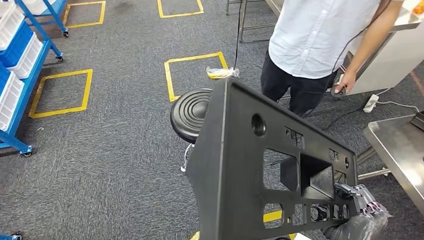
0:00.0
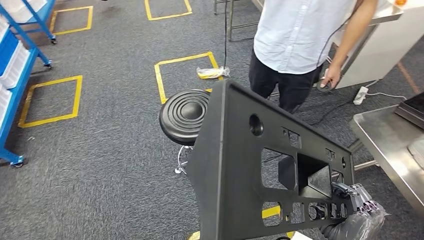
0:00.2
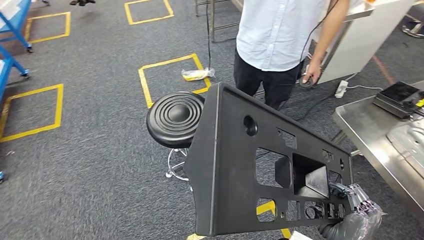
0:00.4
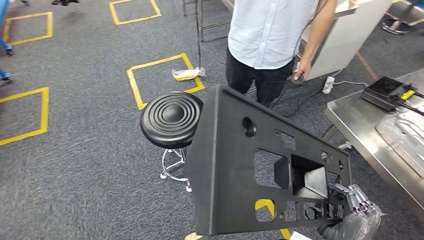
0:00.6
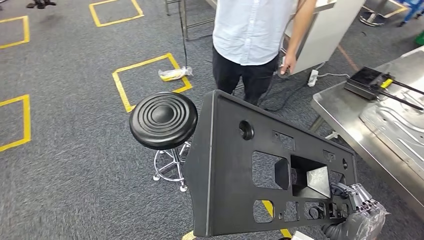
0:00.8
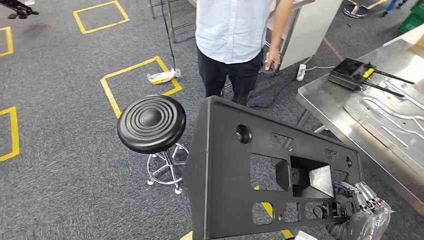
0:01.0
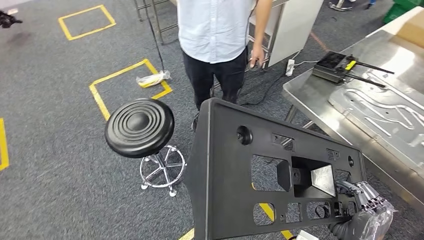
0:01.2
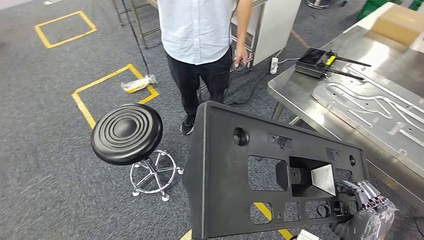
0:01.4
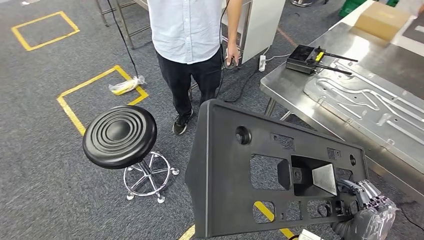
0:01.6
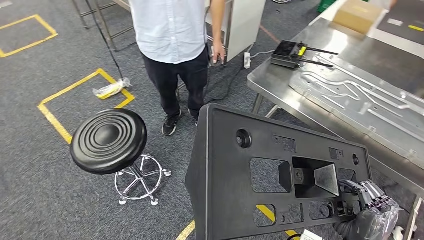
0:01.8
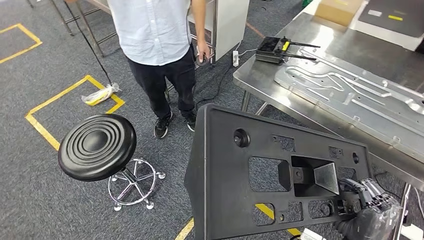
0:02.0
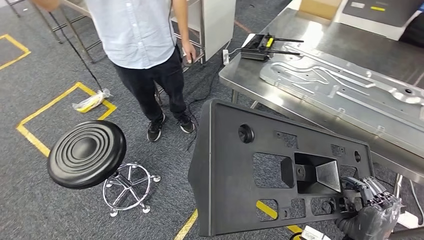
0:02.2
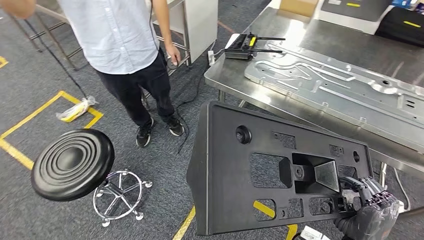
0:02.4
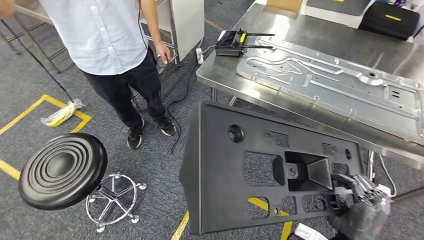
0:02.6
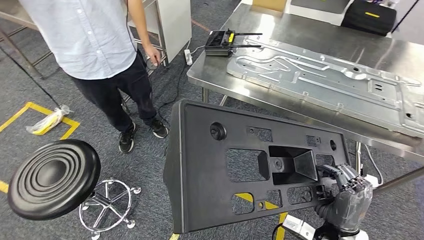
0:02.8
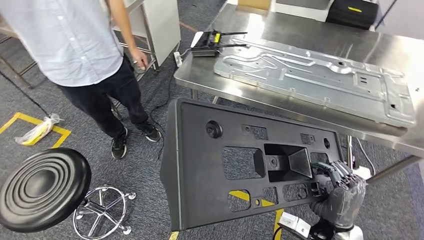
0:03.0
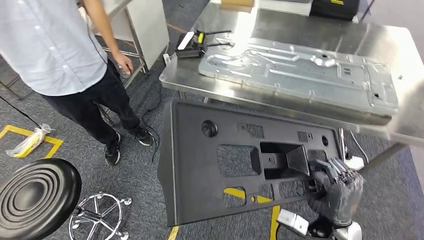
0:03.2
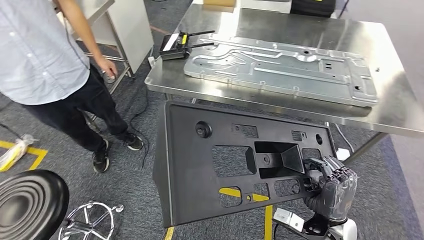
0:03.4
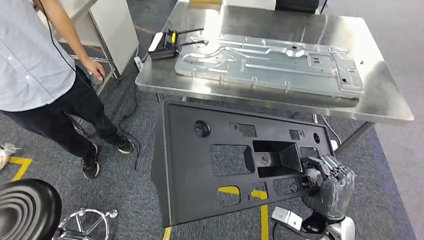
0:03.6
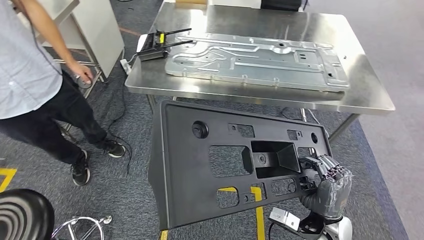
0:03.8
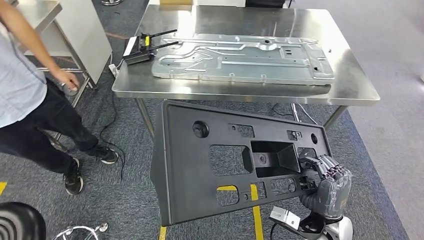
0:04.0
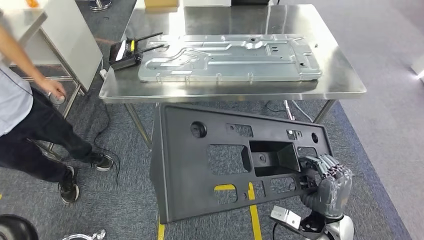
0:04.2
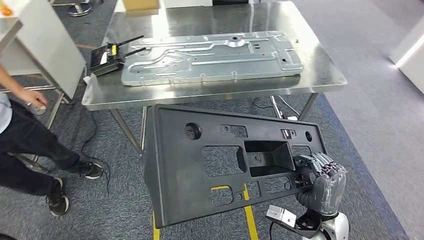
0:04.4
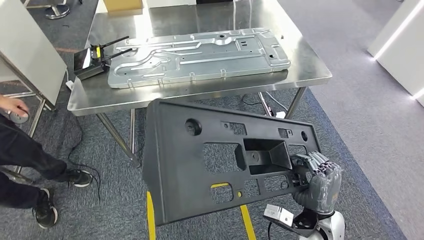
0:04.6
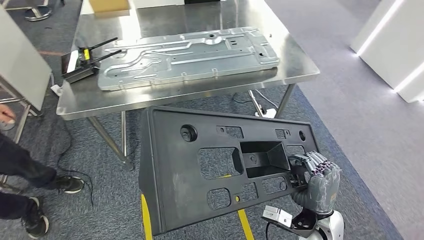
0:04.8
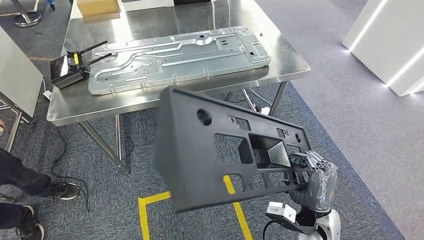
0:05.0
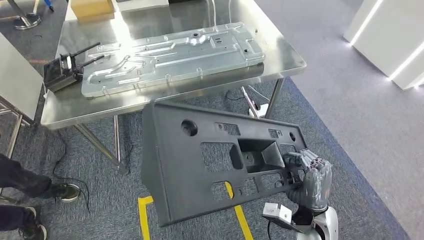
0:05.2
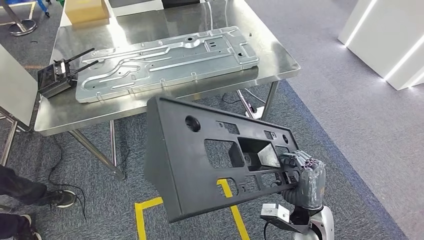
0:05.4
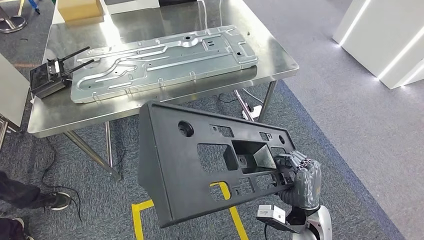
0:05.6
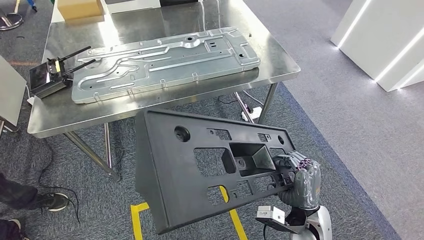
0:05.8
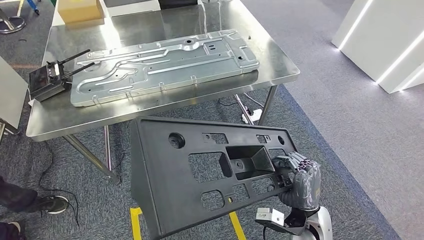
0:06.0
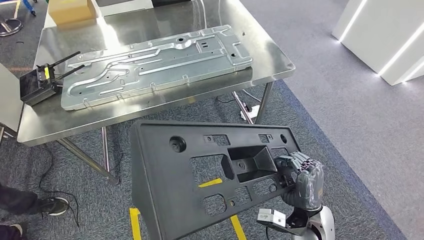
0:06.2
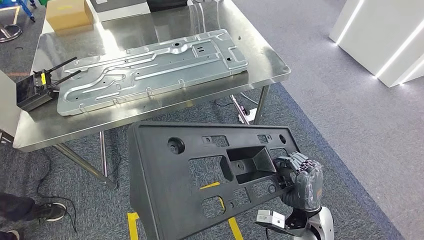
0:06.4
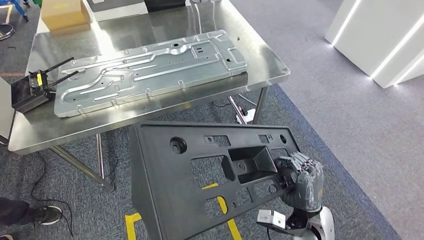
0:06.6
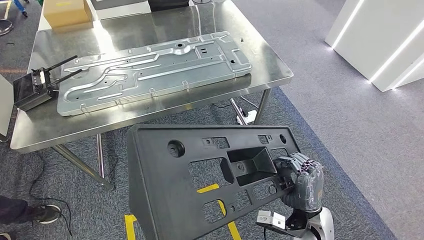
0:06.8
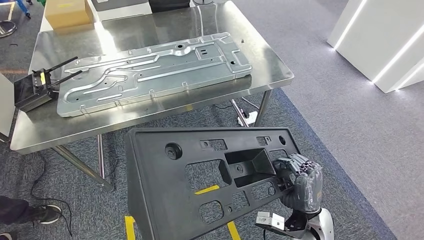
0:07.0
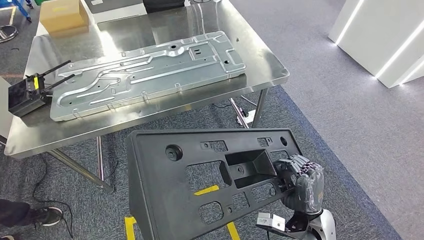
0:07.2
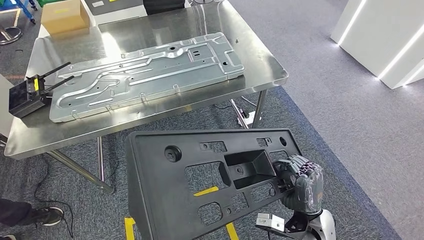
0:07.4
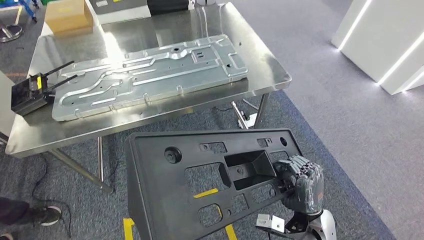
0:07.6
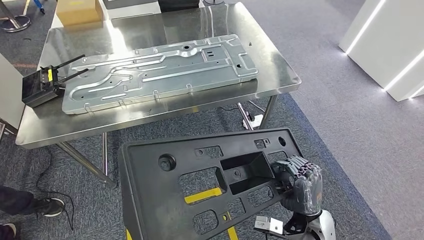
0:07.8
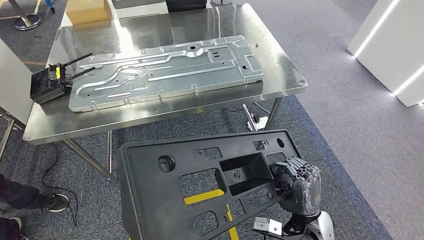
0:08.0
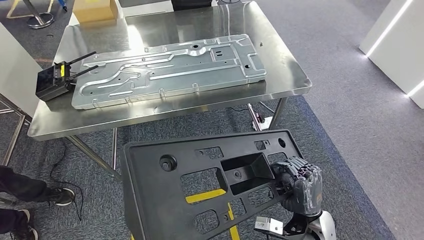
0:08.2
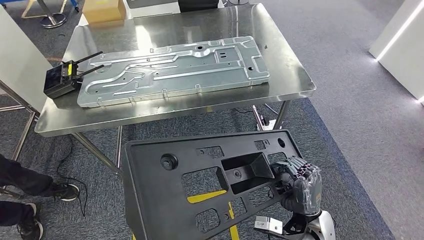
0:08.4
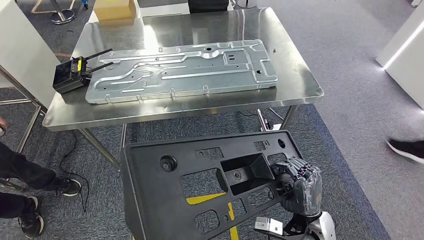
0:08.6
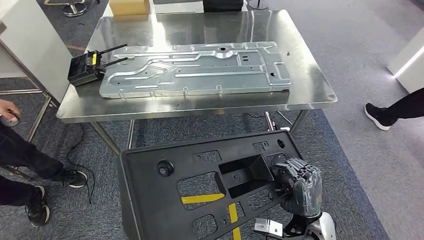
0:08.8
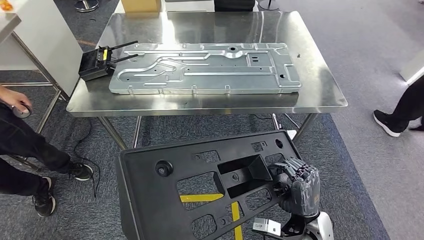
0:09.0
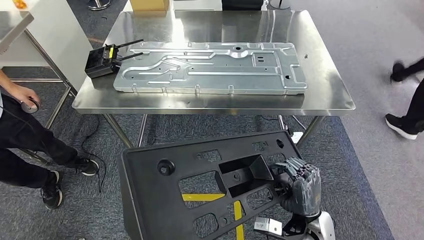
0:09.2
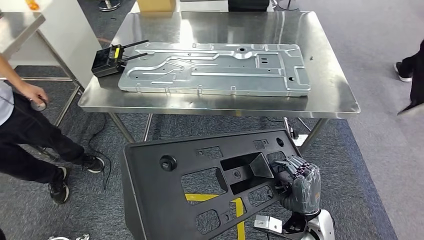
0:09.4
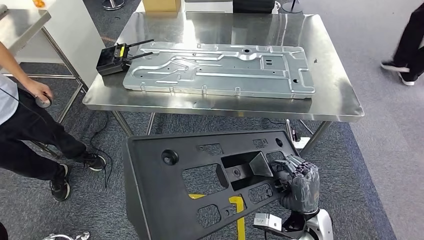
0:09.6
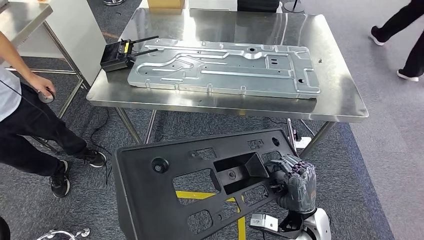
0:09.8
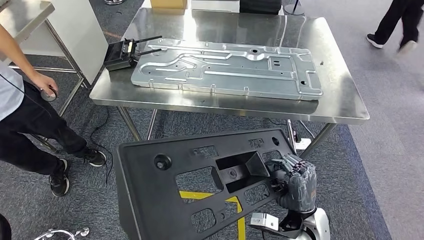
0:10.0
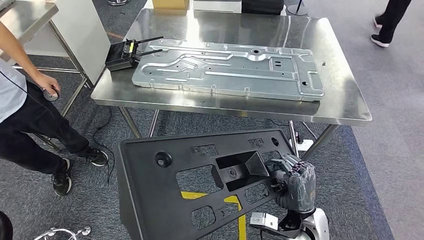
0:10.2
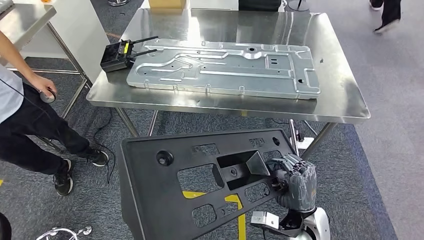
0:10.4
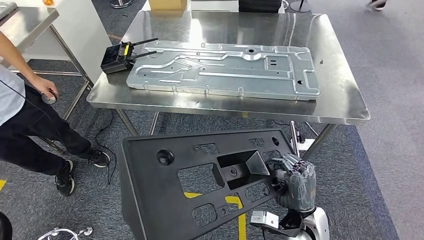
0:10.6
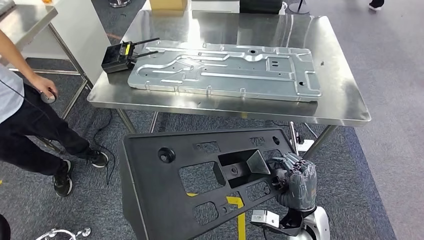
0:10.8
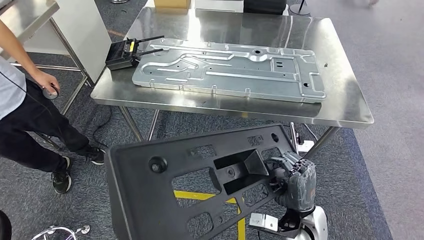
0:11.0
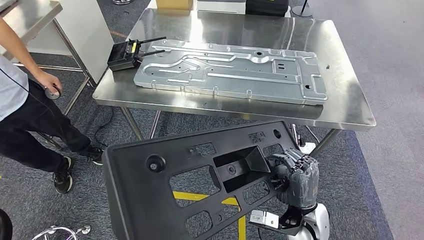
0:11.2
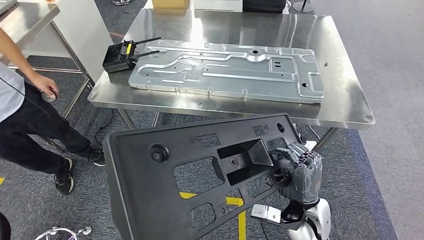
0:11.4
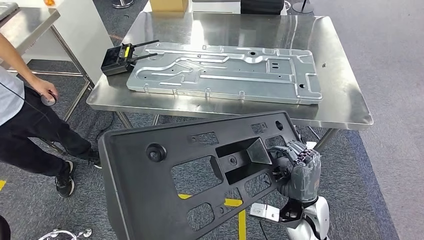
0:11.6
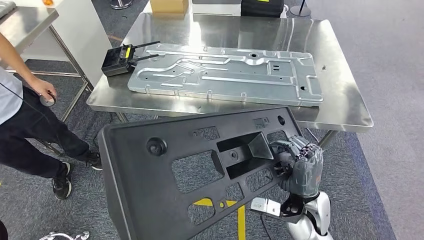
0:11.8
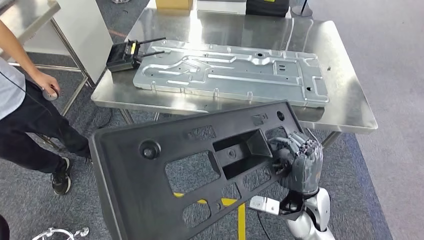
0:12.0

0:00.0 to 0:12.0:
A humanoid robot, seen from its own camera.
Step, 0:00.0 to 0:04.0: Move the large material to the workbench.

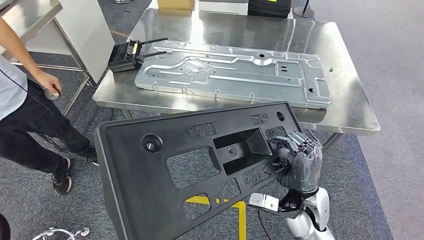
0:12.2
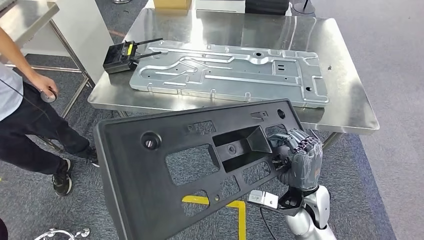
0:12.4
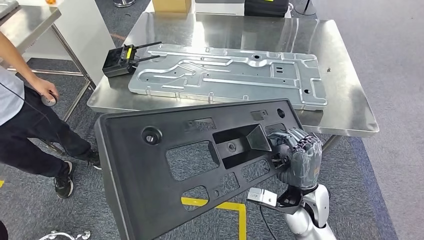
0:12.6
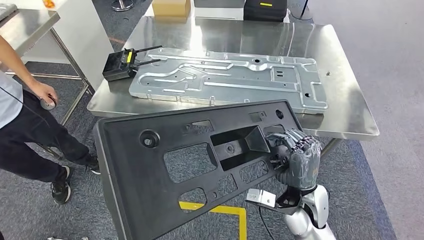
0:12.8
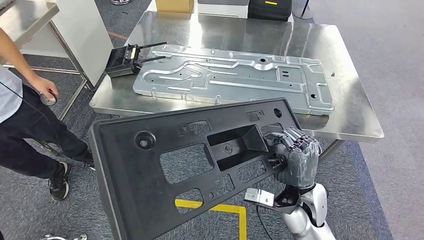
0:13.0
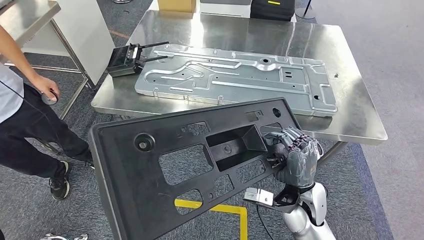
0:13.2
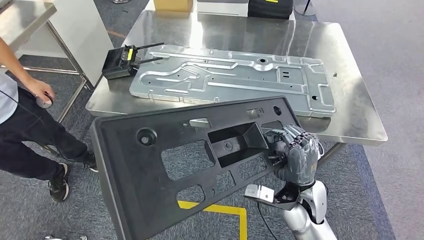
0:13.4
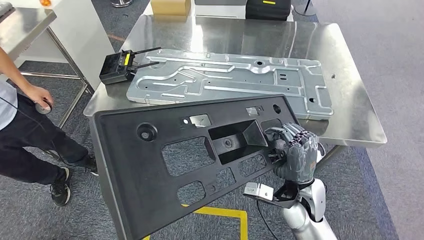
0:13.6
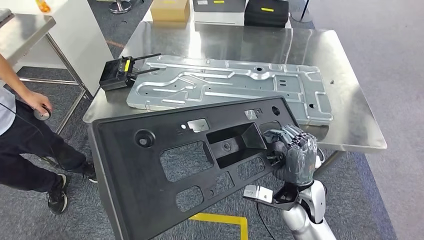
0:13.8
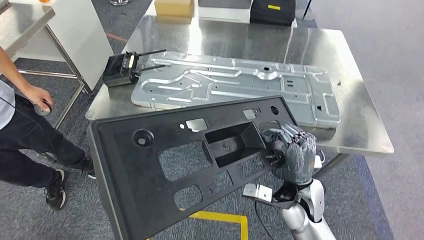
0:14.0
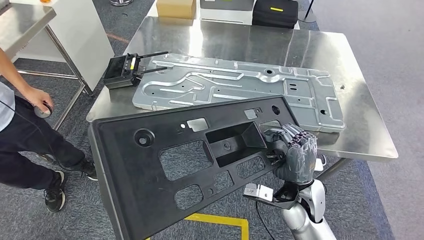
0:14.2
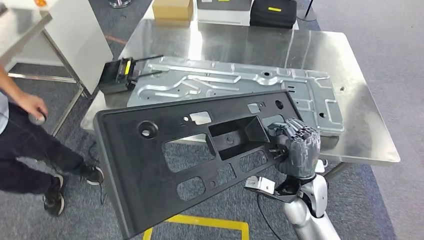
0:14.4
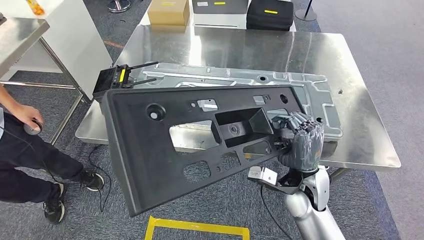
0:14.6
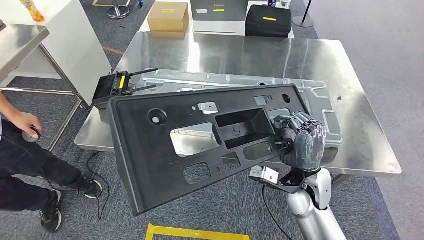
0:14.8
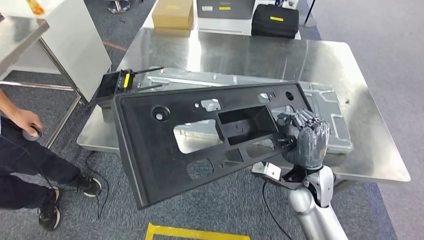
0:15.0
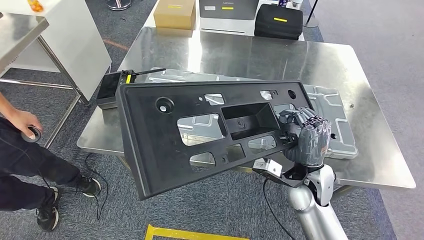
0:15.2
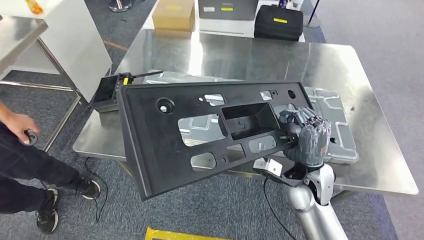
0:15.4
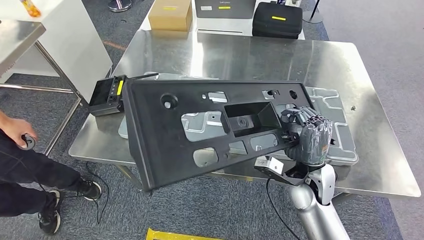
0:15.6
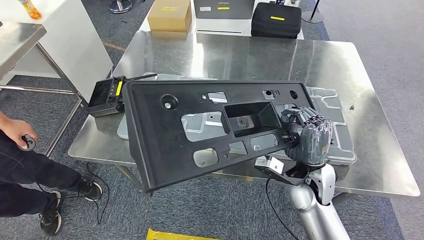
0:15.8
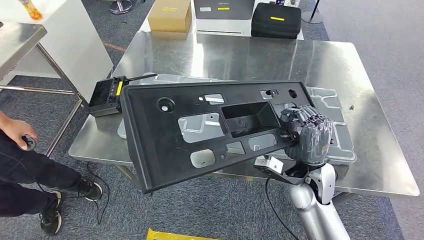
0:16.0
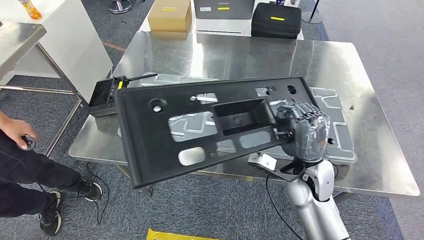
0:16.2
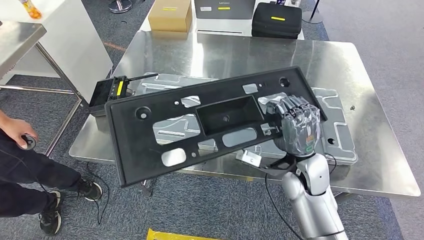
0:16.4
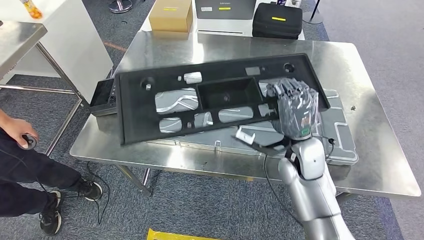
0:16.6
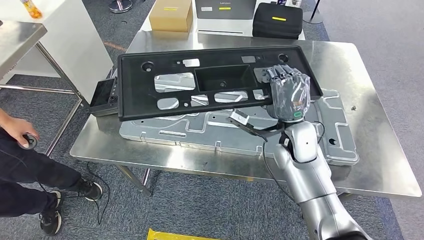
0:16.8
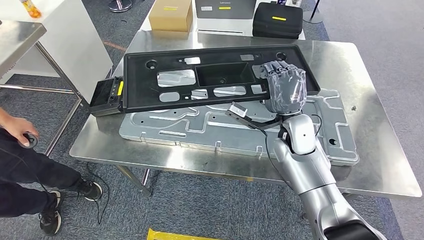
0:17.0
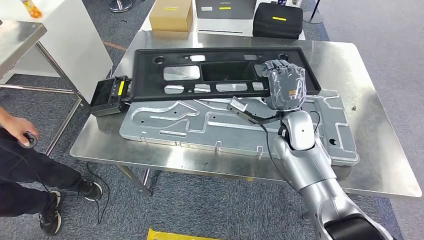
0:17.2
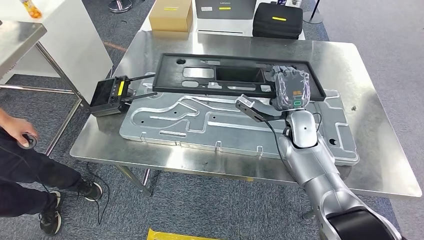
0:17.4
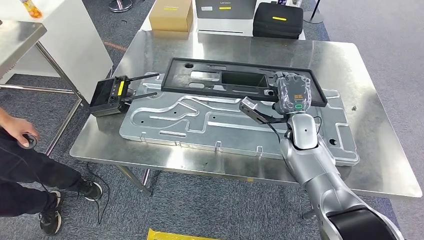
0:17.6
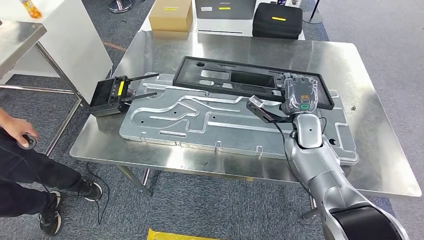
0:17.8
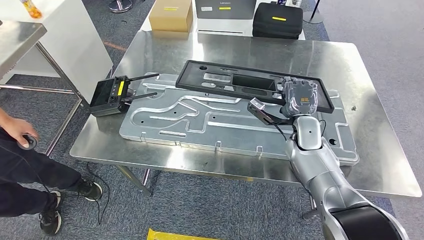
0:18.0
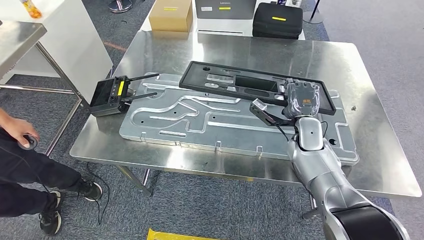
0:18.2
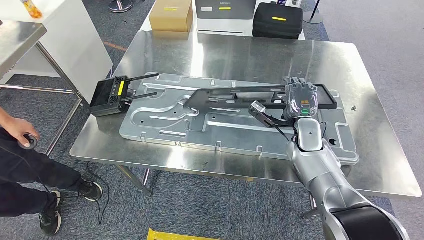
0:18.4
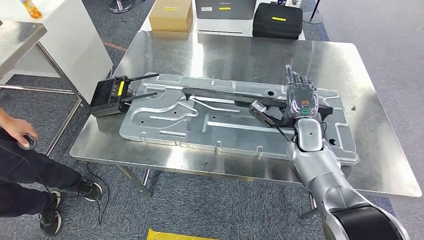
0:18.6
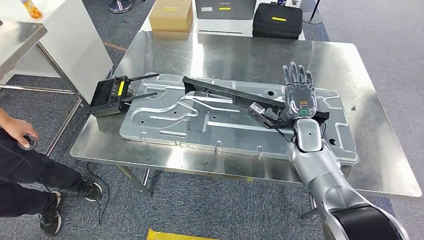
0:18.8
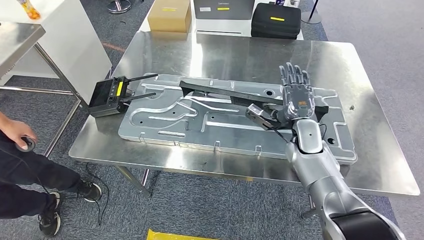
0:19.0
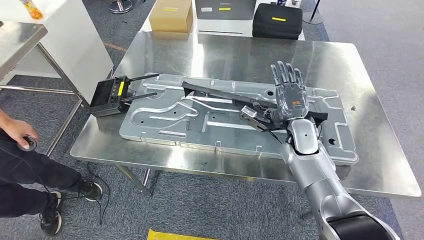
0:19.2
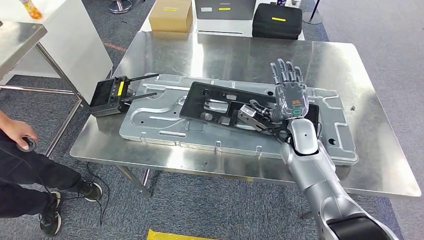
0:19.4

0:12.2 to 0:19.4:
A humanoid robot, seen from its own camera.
0:16.6 to 0:18.0: The right hand heads forward, covering roughly 10 cm.
0:18.0 to 0:19.4: The hands stay close to where they were, moving slightly.
